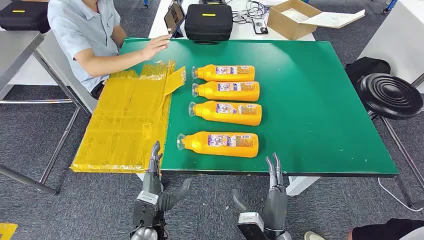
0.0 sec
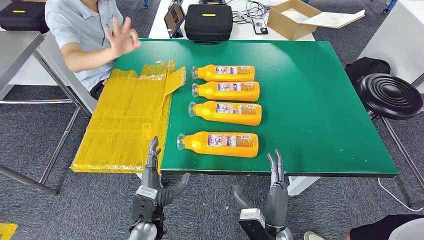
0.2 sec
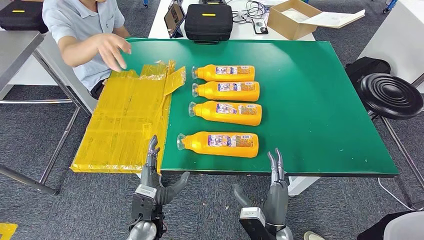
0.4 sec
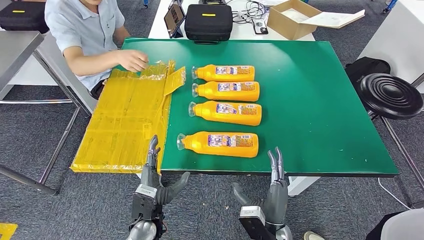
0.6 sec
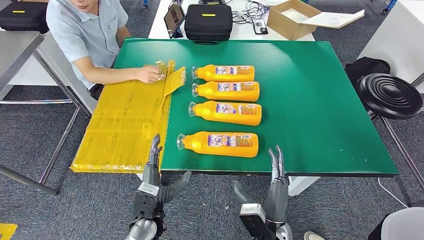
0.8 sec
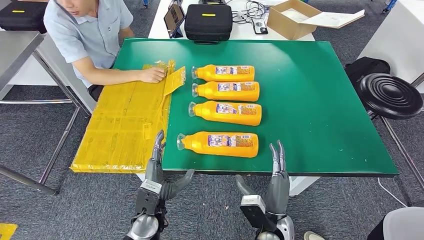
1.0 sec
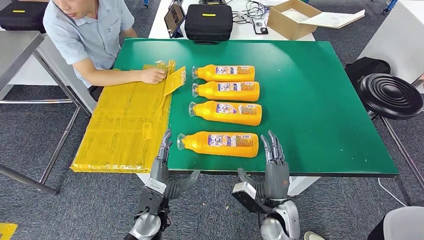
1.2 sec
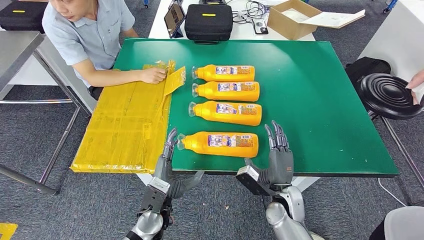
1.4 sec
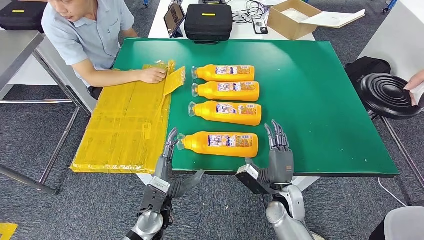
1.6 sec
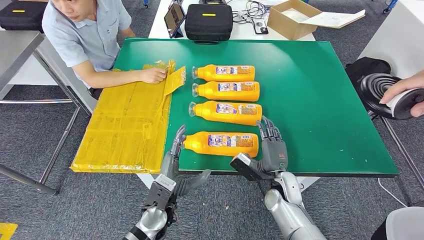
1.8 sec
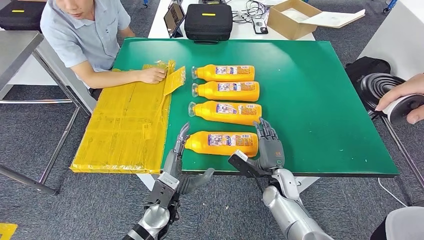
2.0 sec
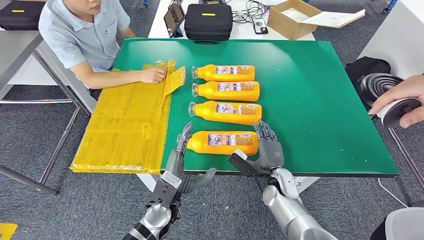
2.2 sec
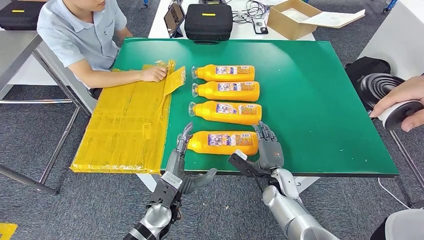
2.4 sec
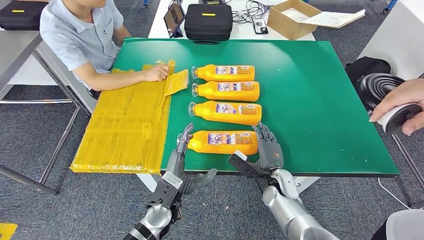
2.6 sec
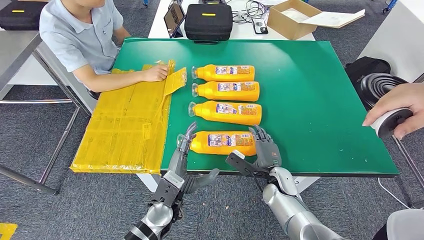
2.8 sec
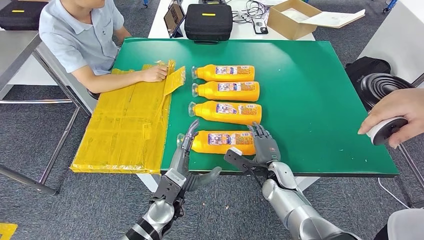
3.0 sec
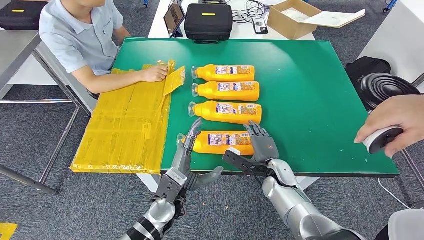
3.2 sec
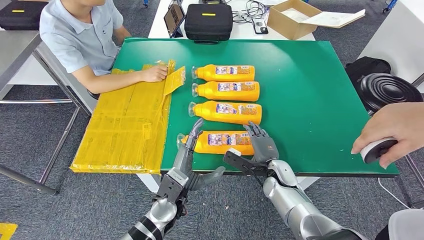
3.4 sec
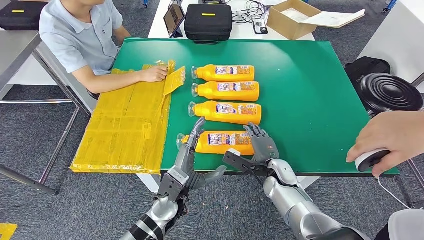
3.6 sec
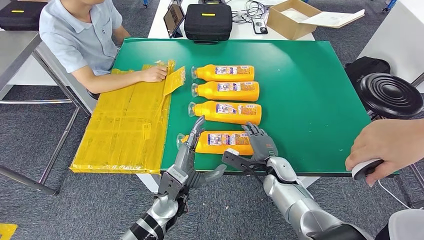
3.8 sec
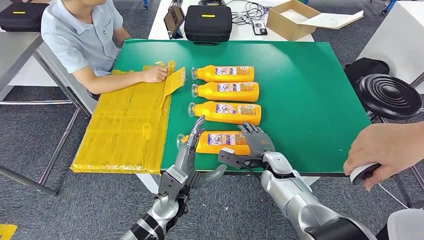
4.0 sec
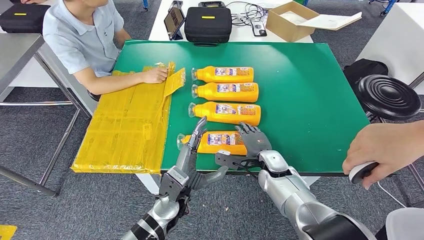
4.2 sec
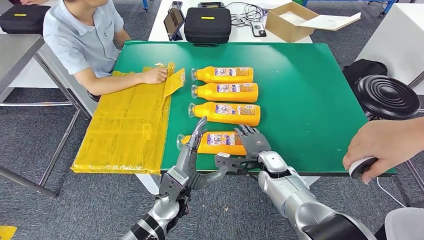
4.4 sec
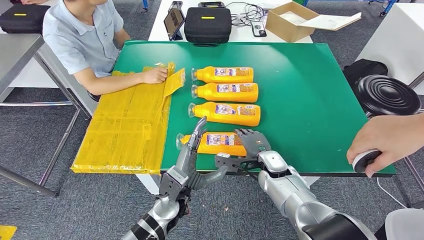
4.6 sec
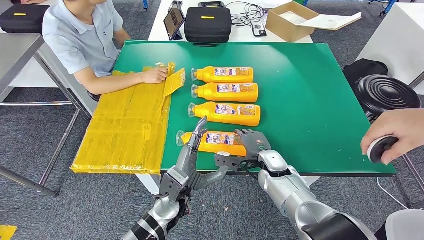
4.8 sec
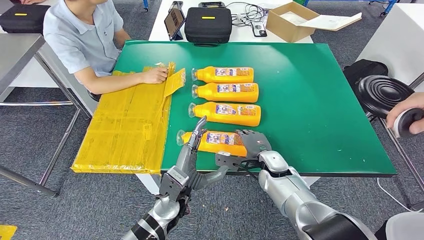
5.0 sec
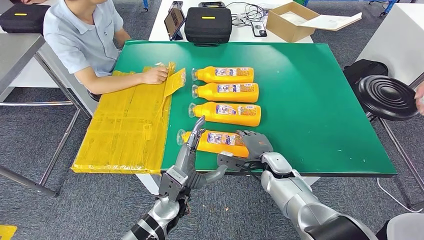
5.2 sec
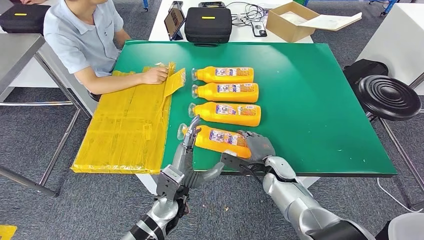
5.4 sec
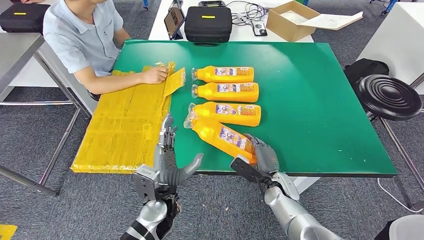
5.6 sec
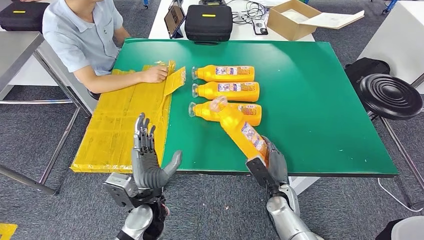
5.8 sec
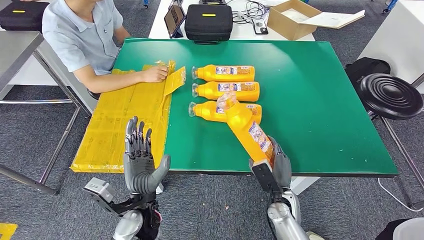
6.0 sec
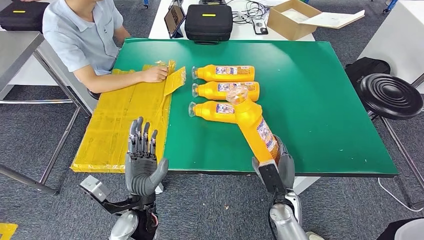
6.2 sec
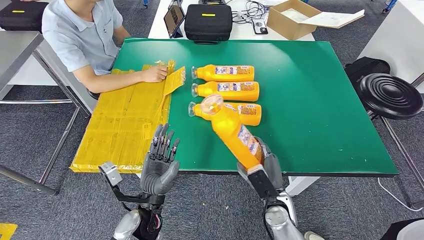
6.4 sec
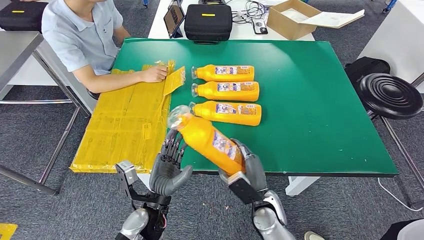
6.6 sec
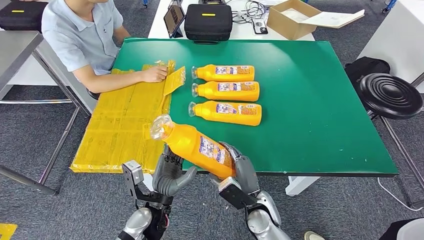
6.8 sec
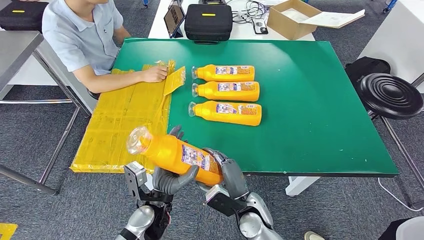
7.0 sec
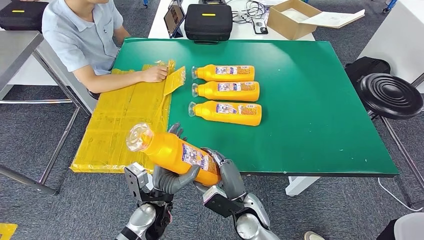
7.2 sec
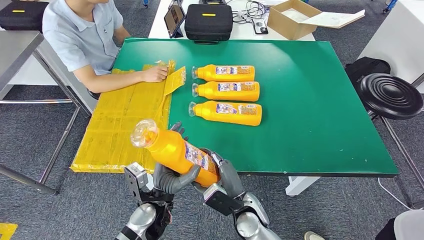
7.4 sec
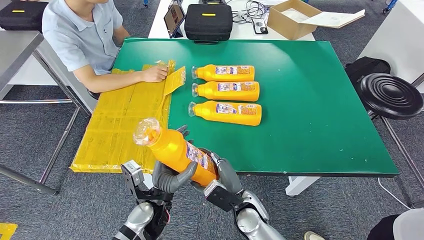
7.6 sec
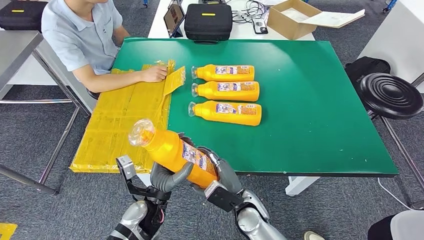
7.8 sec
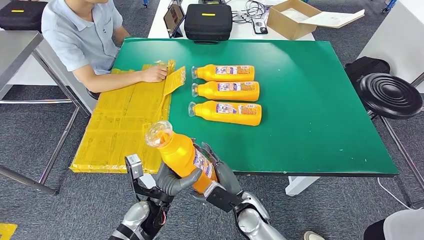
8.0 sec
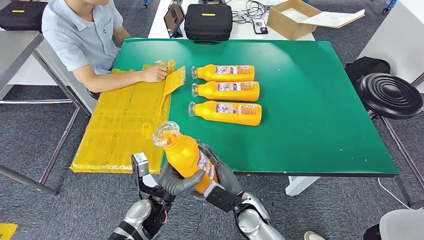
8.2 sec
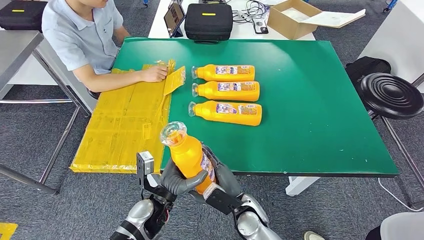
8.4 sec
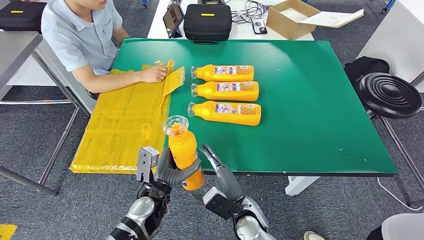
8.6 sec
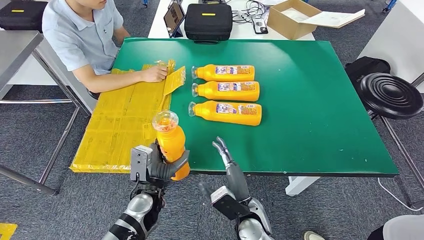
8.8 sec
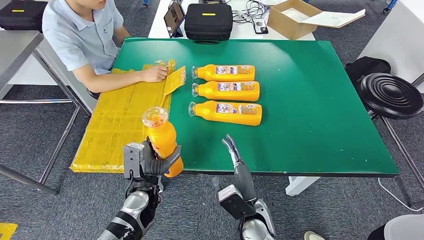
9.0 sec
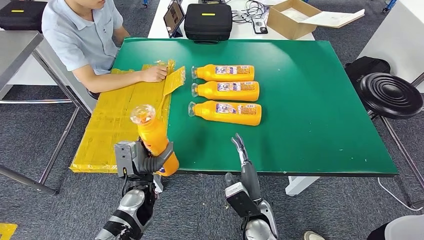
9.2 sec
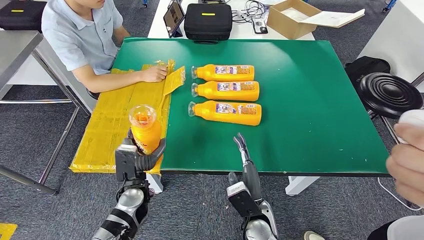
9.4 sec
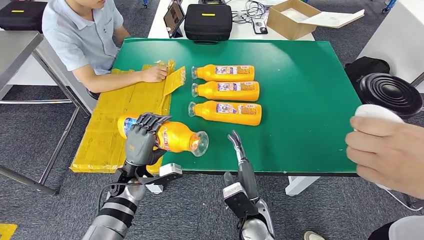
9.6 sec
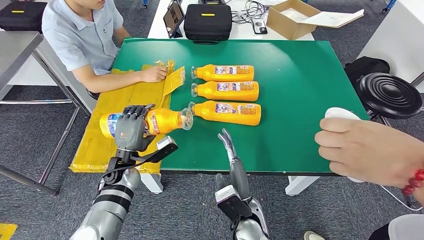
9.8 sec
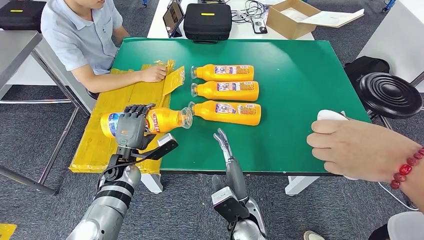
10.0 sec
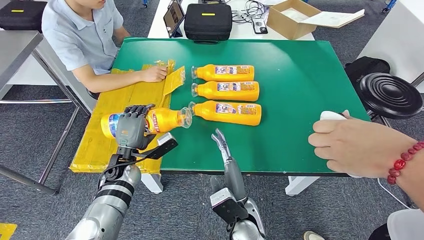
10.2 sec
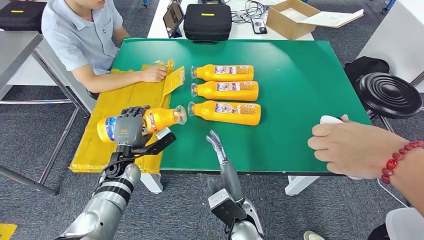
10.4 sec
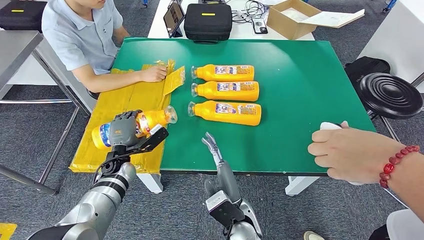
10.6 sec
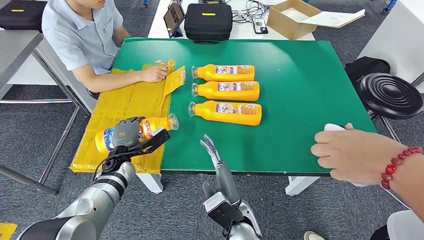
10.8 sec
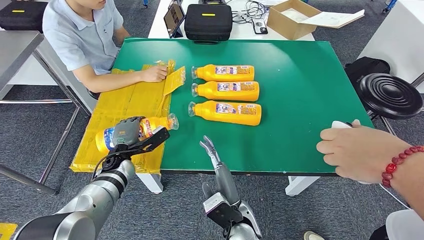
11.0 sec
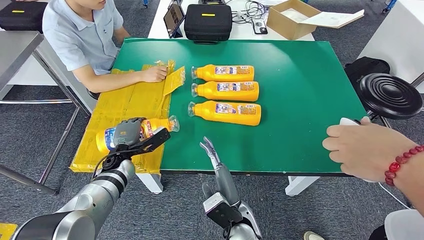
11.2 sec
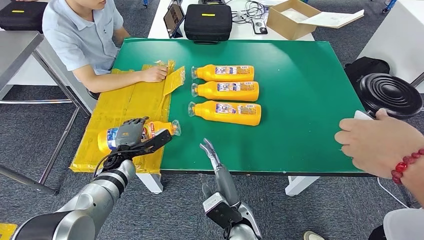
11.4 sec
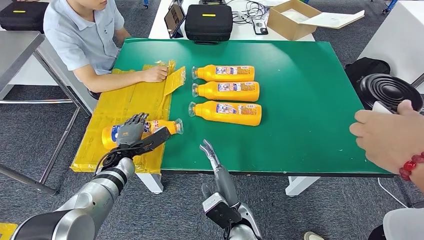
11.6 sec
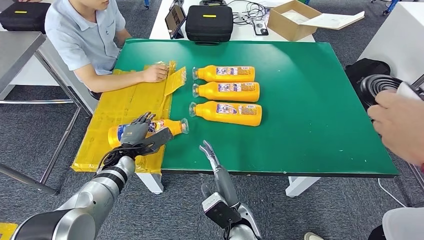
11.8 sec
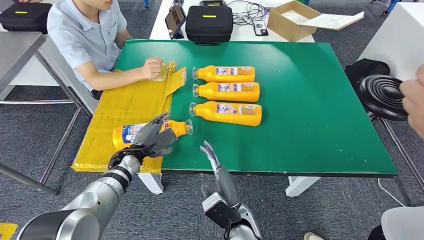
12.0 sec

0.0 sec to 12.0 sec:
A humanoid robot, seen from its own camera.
Step, 0.0 sec to 7.2 sec: Take the fast-moving consumer goods bottle from the table.
1.6 sec to 3.0 sec: The right hand travels forward by about 5 cm.
6.0 sec to 7.6 sec: The right hand heads to the left, covering some 10 cm.
7.6 sec to 9.0 sec: The left hand ends up approximately 5 cm from where it was.

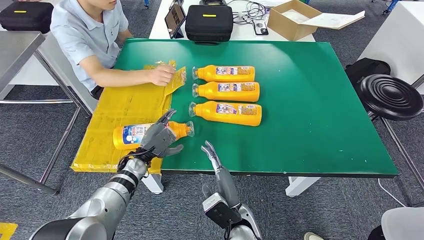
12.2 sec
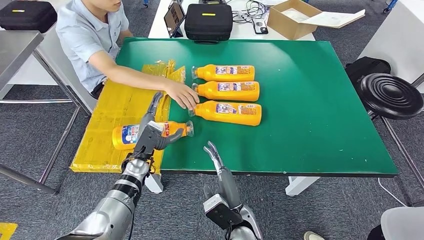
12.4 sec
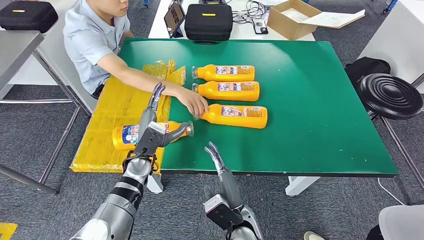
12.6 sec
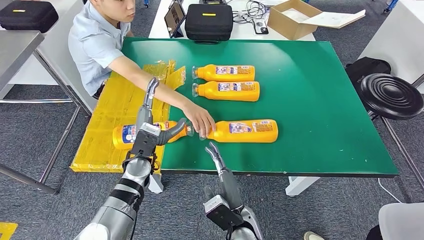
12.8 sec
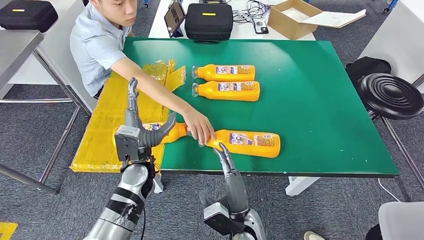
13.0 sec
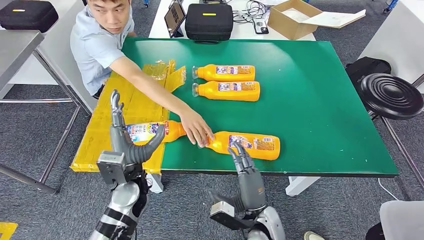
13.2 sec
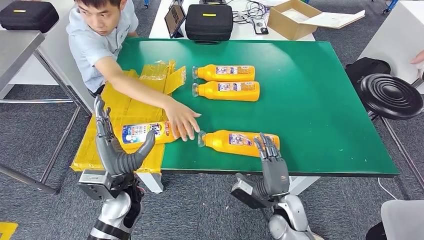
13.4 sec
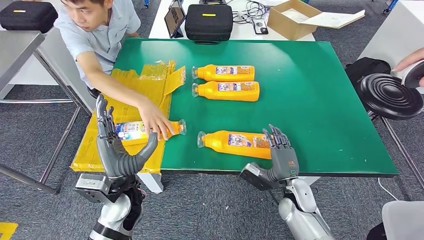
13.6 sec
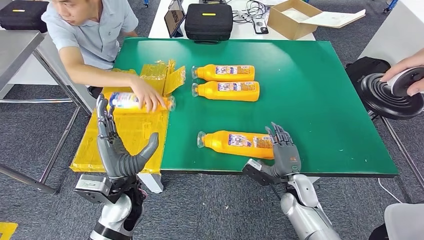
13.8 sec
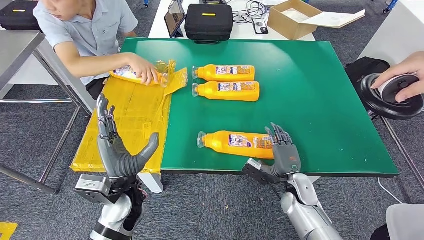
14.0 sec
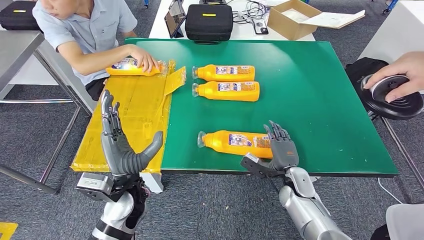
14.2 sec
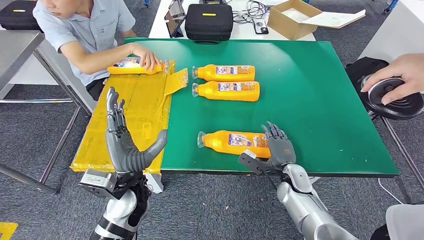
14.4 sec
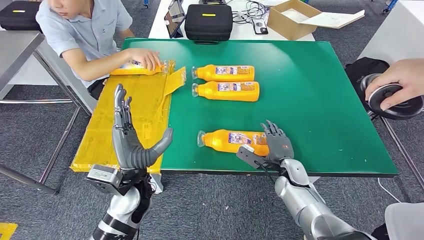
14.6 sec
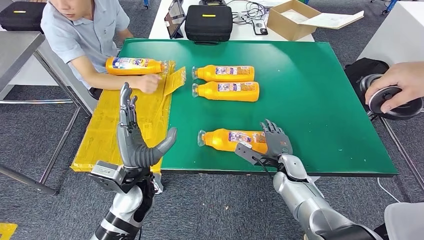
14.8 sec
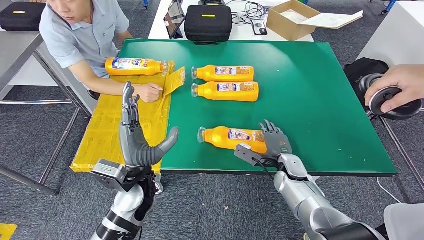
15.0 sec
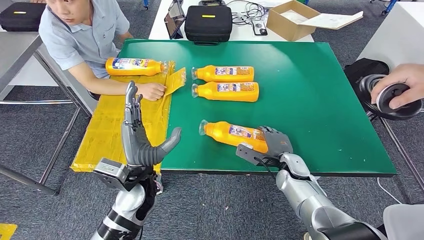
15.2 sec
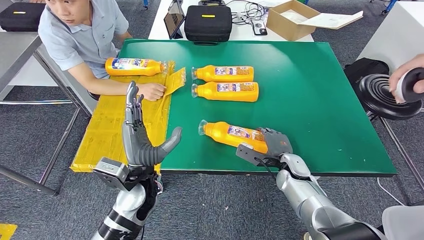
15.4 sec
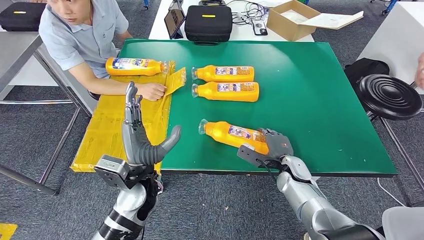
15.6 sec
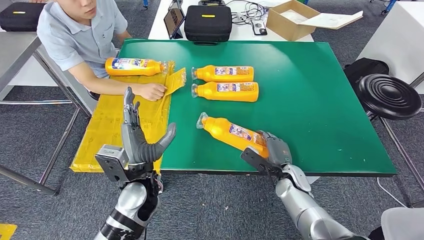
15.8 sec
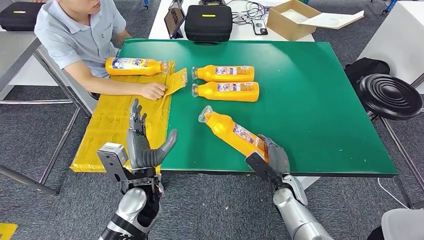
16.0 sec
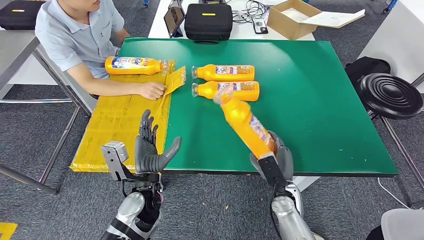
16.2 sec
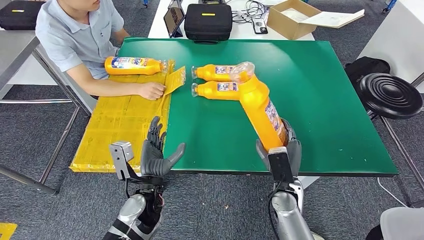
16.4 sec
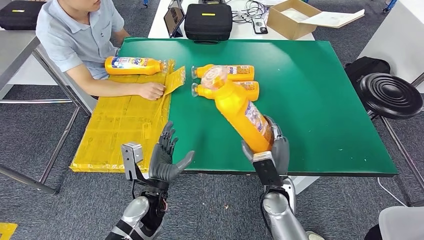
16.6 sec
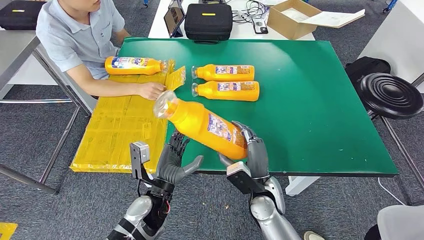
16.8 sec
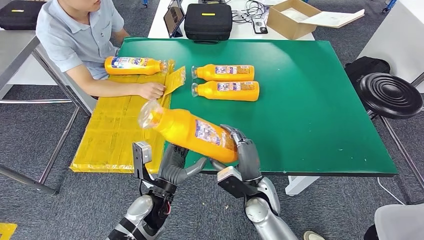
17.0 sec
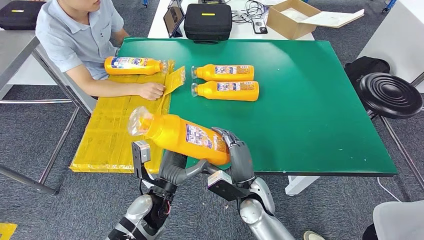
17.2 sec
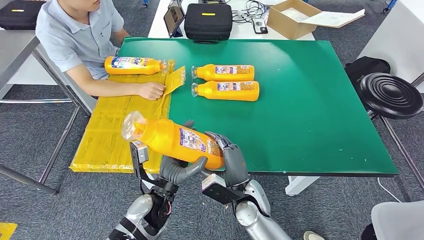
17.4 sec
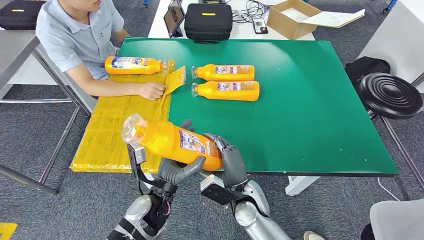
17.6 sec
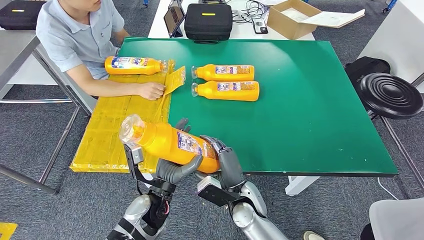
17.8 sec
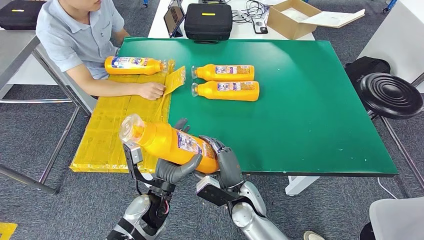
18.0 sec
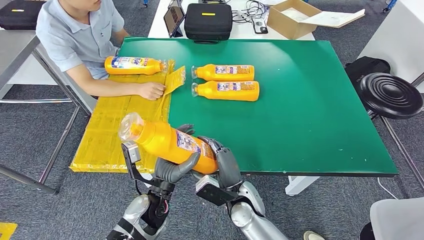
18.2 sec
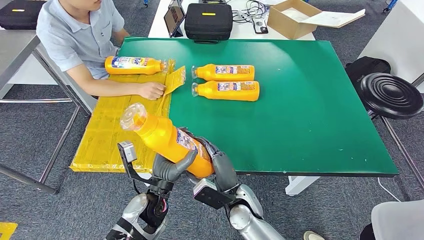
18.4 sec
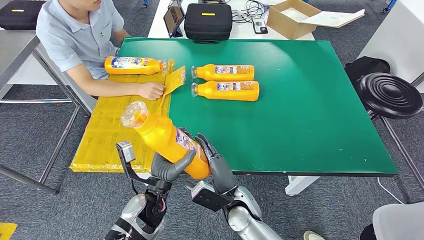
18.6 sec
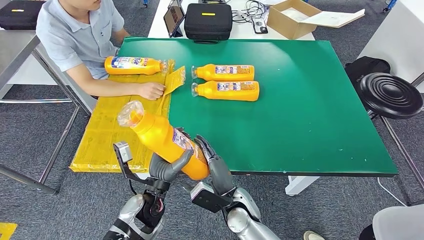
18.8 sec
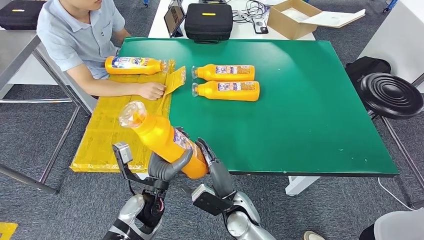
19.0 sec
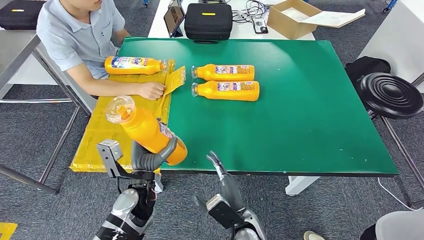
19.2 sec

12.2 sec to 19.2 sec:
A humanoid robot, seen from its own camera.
Step, 12.8 sec to 16.2 sec: Pick up the fast-moving consumer goods bottle from the table.
16.4 sec to 17.8 sec: The right hand shifts approximately 10 cm to the left.
17.8 sec to 19.2 sec: The right hand travels backward by some 5 cm.
